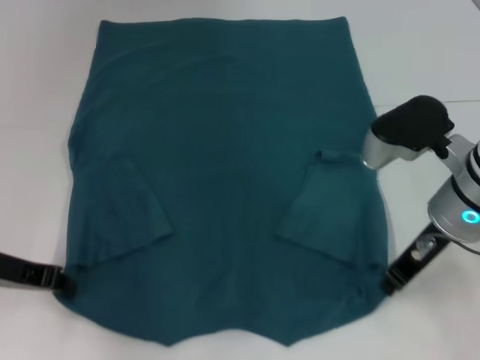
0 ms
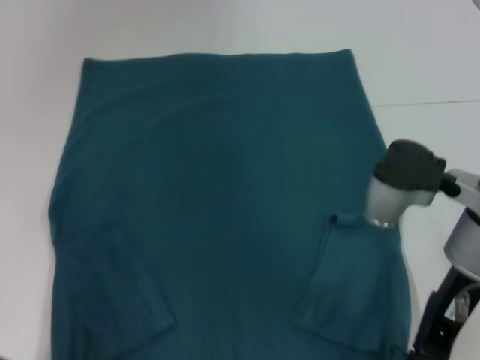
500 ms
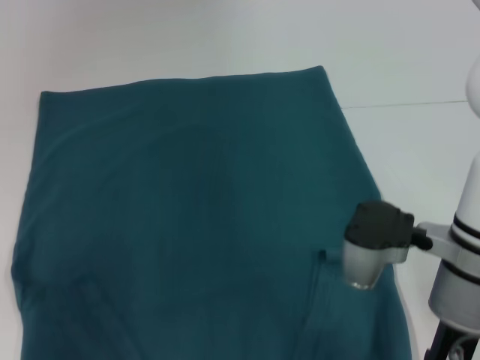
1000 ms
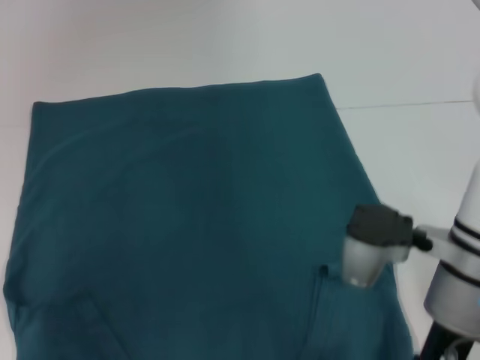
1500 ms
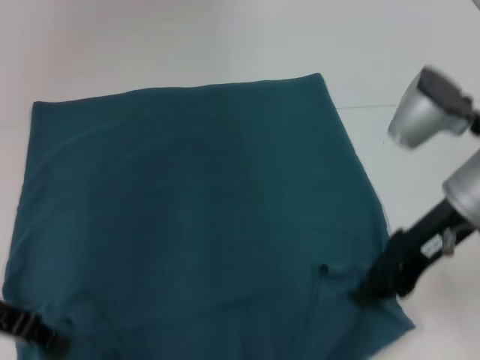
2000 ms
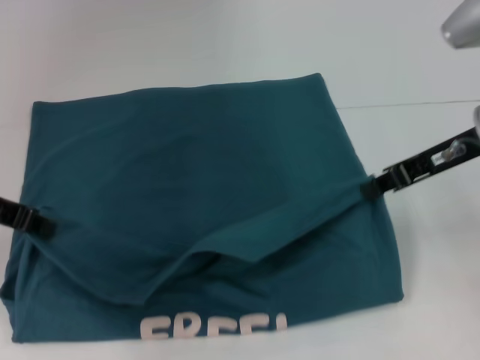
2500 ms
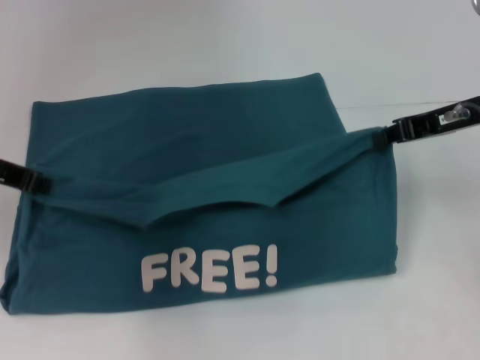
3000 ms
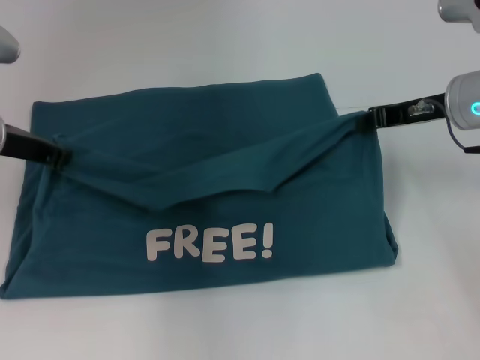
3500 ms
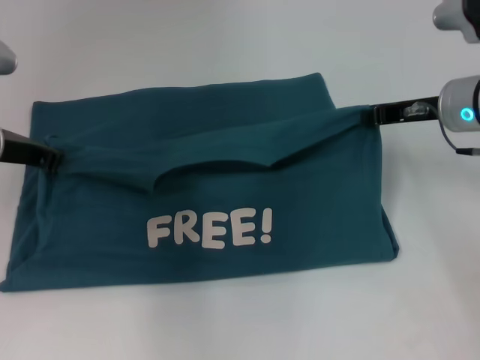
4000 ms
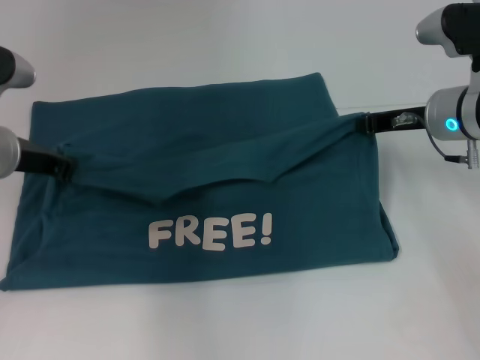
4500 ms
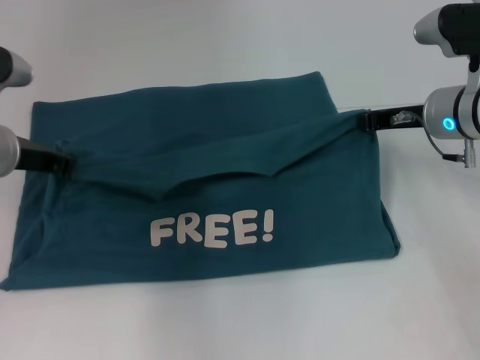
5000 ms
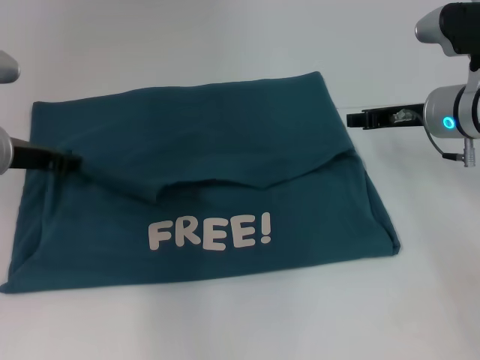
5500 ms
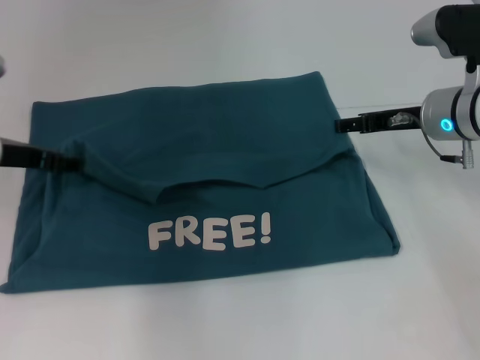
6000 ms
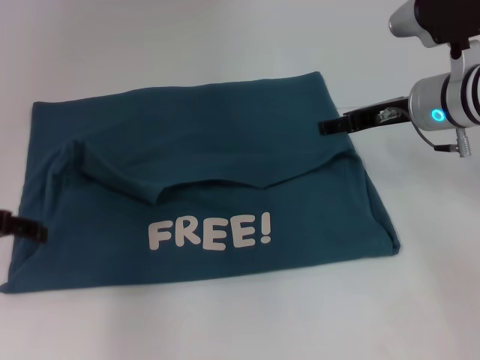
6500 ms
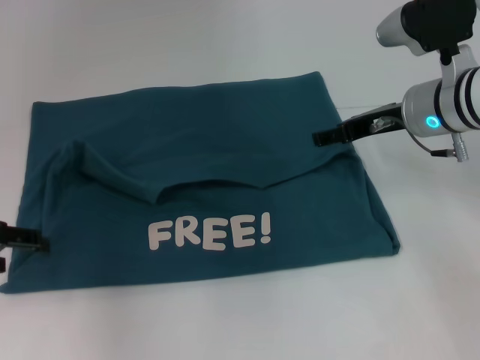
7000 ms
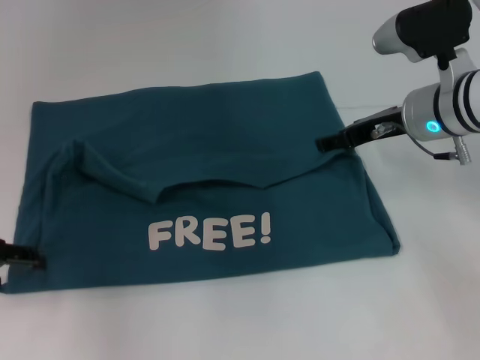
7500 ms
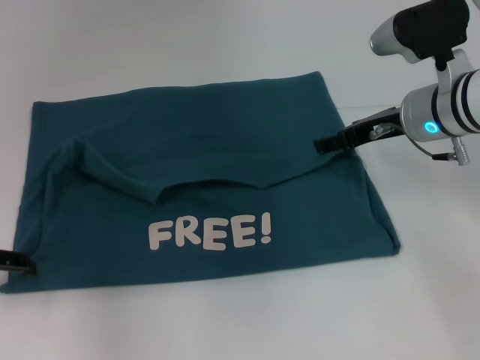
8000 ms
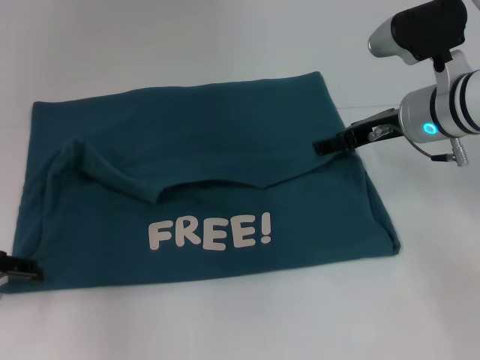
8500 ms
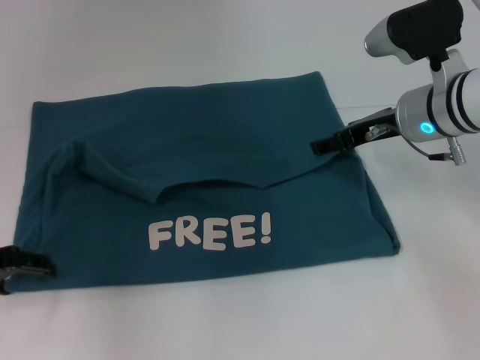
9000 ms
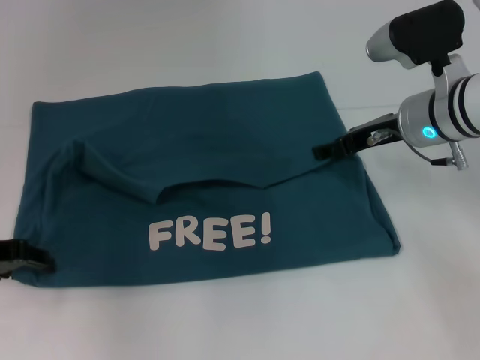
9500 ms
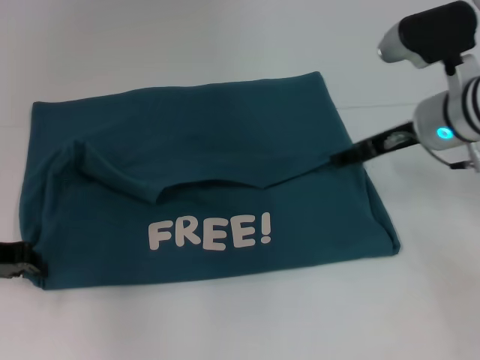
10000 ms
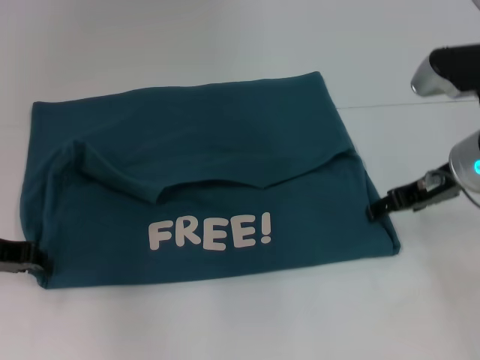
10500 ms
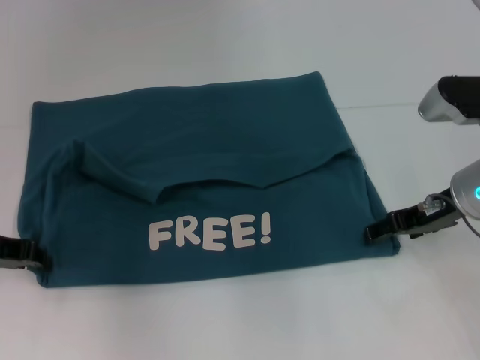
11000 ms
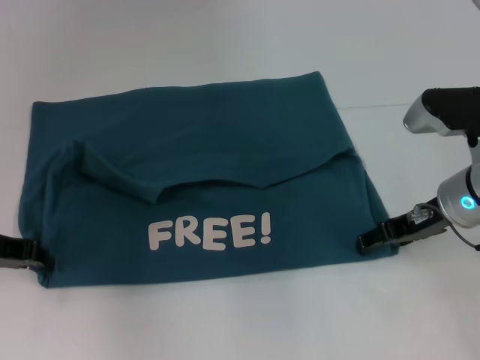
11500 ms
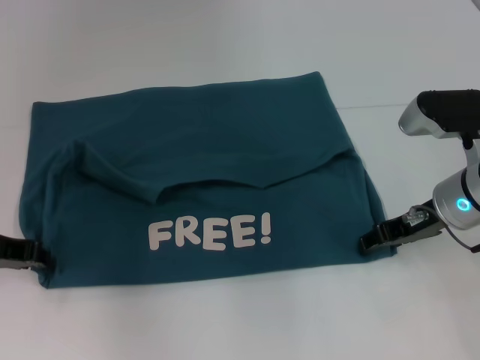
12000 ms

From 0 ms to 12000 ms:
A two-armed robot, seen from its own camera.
Step, from 0 ms to 6000 ms: Fold the clothes to the left.
Step, from 0 ms to 6000 ms: Fold the clothes to the right.
From 2000 ms to 4000 ms: The grippers both shift forward by some 10 cm.
From 4000 ms to 6000 ms: The right gripper opens; the left gripper opens its fingers.
From 6000 ms to 8000 ms: The left gripper moves to the left and backward, approximately 10 cm.
From 8000 ms to 10000 ms: The left gripper closes up.
From 10000 ms to 12000 ms: The right gripper changes place by approximately 5 cm.

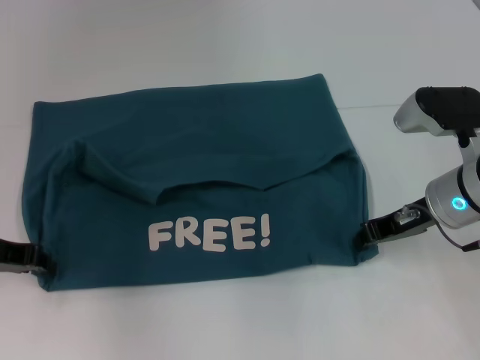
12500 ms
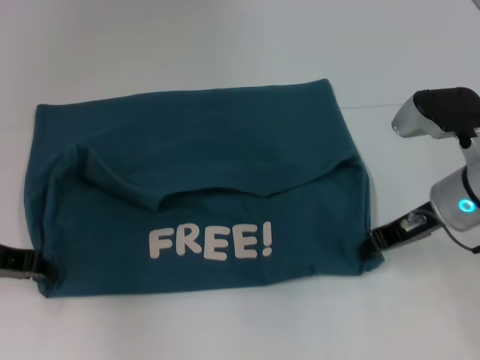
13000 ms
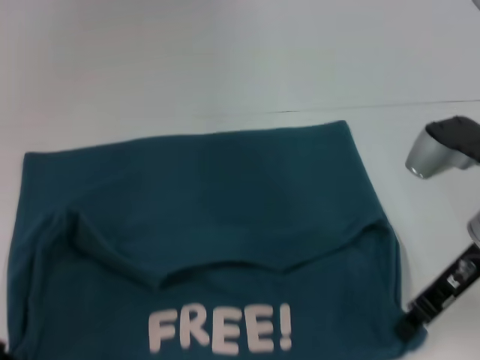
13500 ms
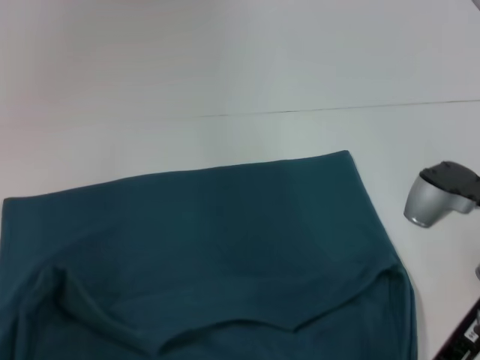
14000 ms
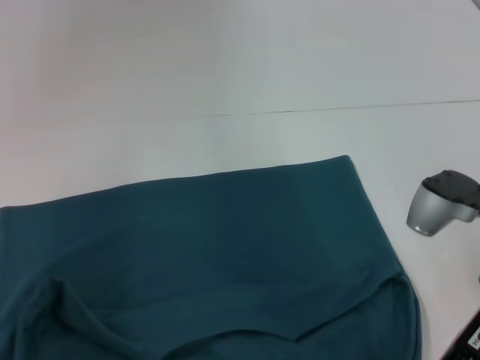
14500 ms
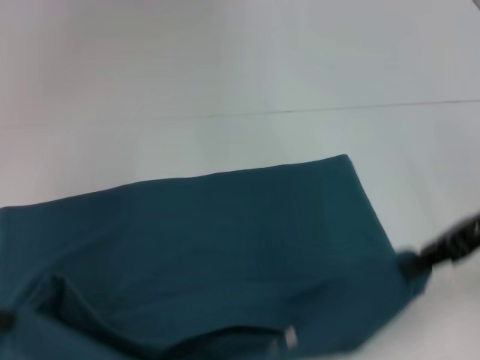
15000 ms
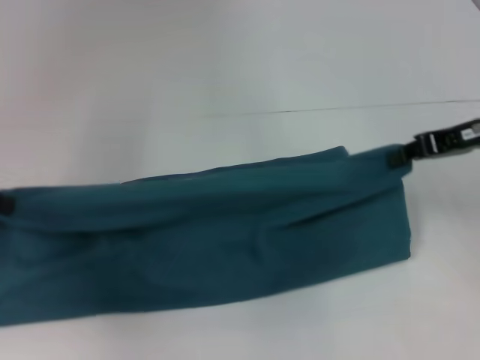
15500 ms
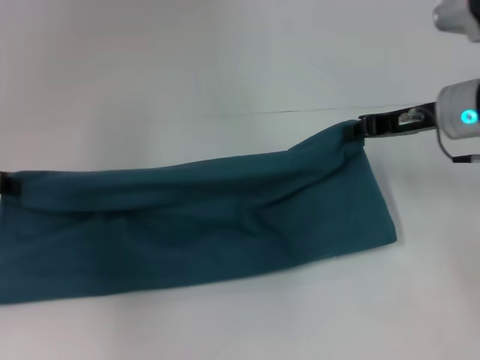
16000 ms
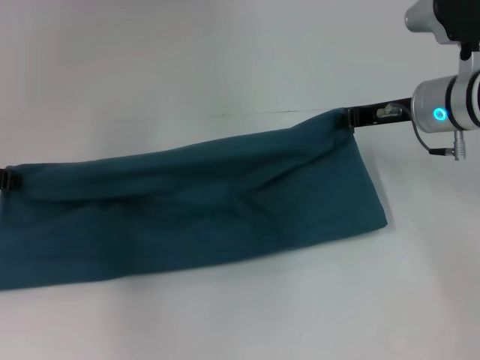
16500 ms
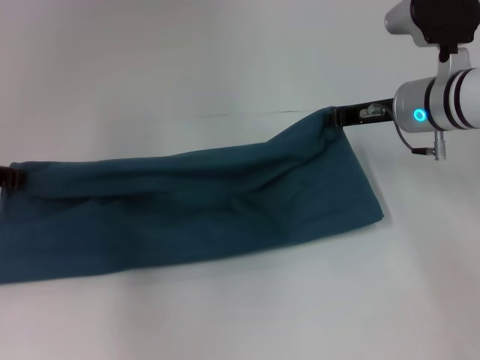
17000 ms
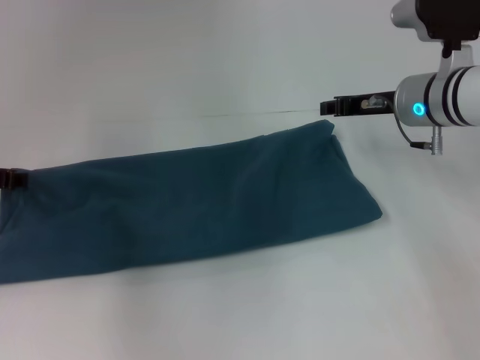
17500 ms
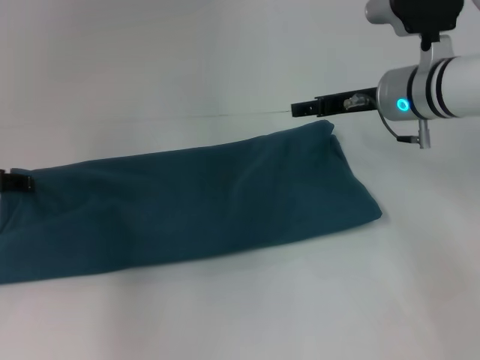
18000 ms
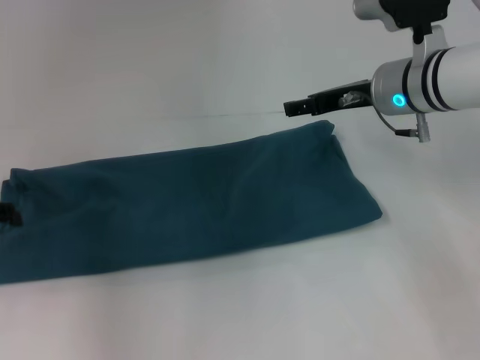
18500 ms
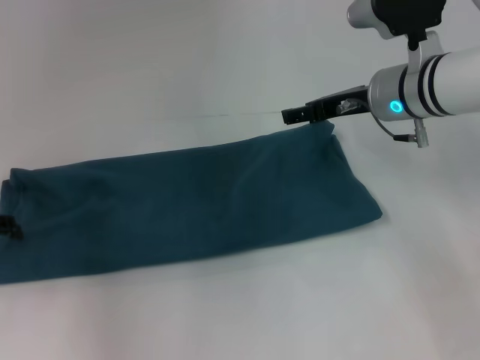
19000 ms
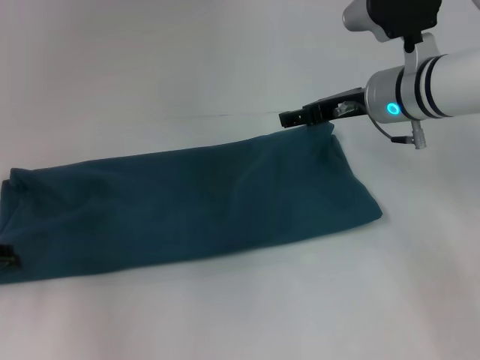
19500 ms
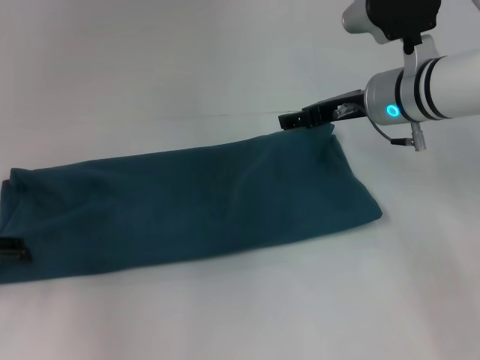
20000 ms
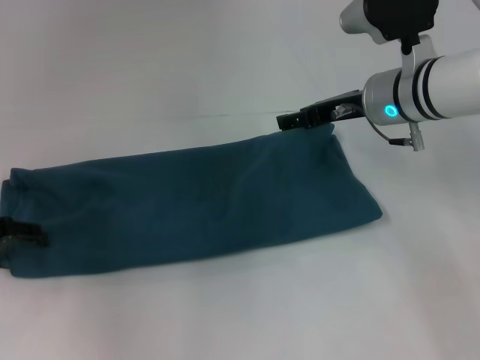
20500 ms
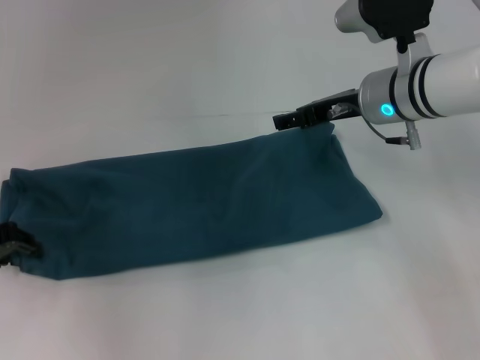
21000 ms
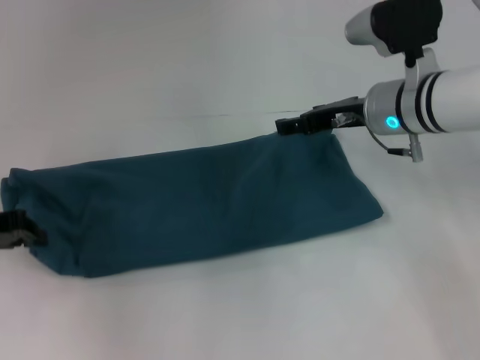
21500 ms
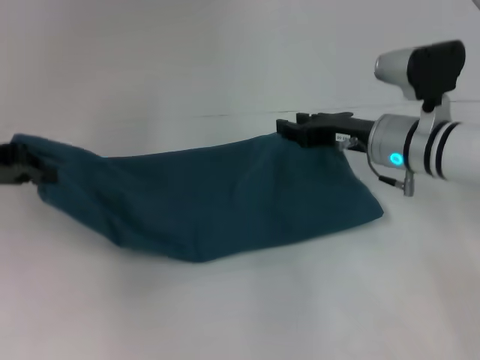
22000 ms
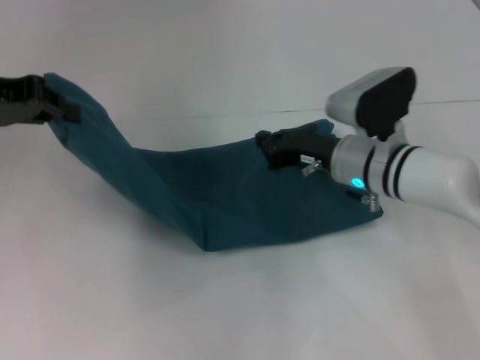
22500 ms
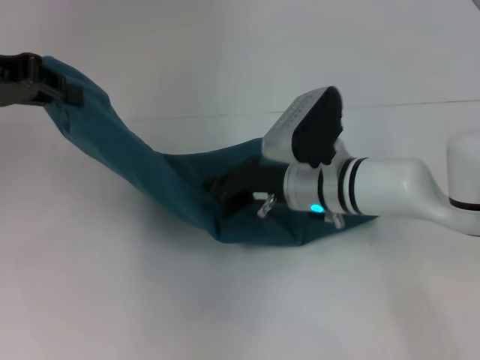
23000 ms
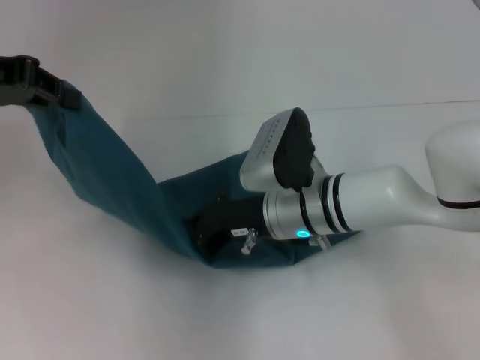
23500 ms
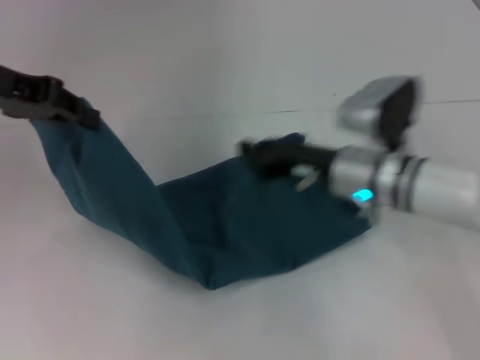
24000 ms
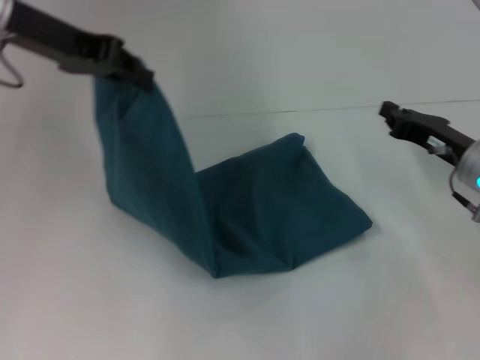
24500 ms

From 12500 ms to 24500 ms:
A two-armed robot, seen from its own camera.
Step, from 13500 ms to 17500 ms: Fold the clothes to the left.
Step, from 13500 ms to 17500 ms: Fold the clothes to the right.
Step, from 18000 ms to 23500 ms: Press the middle of the clothes with your right hand.
From 12500 ms to 14500 ms: The two grippers go some 10 cm backward.
From 14500 ms to 16500 ms: Both grippers travel together forward, roughly 15 cm.
From 16500 ms to 18500 ms: The left gripper shifts by roughly 5 cm, and opens its fingers; the right gripper opens.
From 18500 ms to 20500 ms: The grippers make only small movements.
From 20500 ms to 22500 ms: The right gripper heads downward, covering some 10 cm, and closes up. The left gripper goes some 15 cm upward and forward, and closes its fingers.
From 22500 ms to 24500 ms: The left gripper moves to the right and upward, roughly 10 cm. Meanwhile the right gripper is displaced to the right by approximately 10 cm.

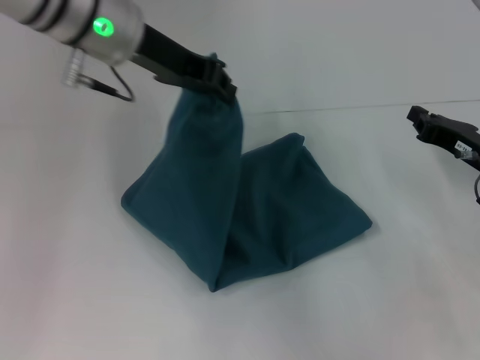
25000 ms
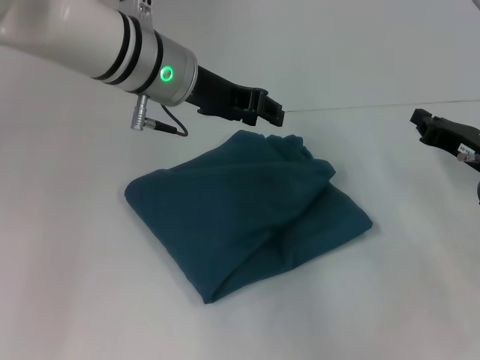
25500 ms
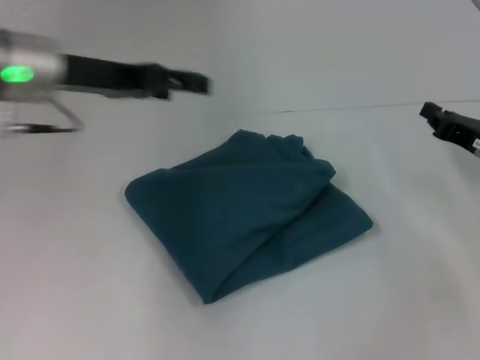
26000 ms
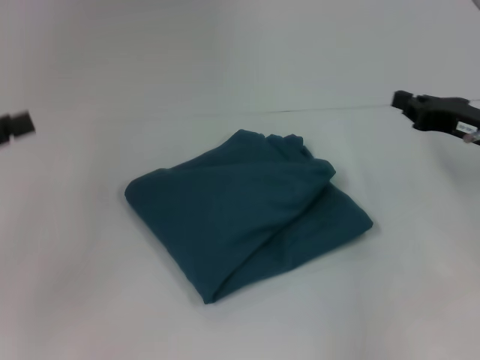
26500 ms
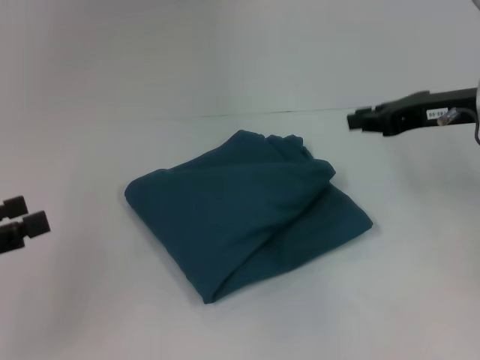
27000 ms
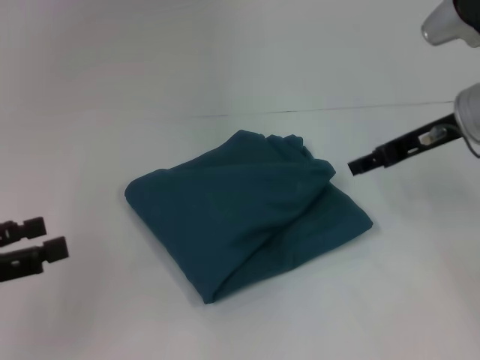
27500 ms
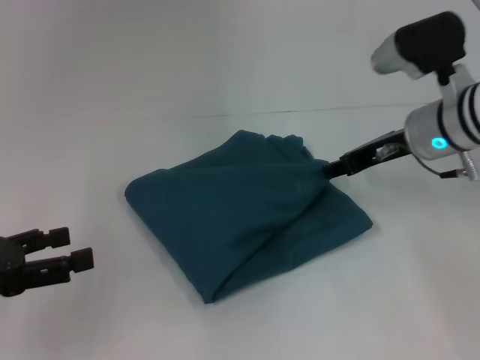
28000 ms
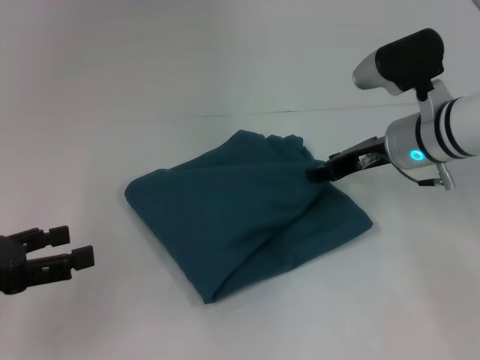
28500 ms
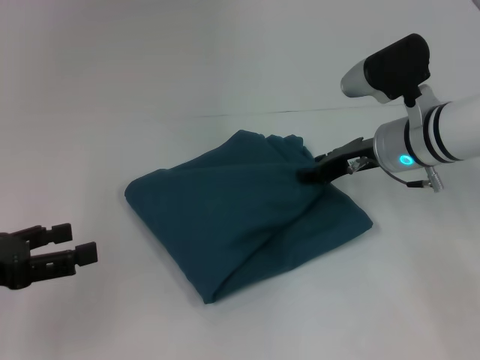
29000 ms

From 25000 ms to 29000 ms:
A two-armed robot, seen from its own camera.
From 25000 ms to 27000 ms: The left gripper heads to the left, backward and downward, covering roughly 30 cm, and opens. Meanwhile the right gripper shifts about 10 cm upward.
From 27000 ms to 29000 ms: The right gripper is displaced to the left and downward by about 10 cm, and opens up.
